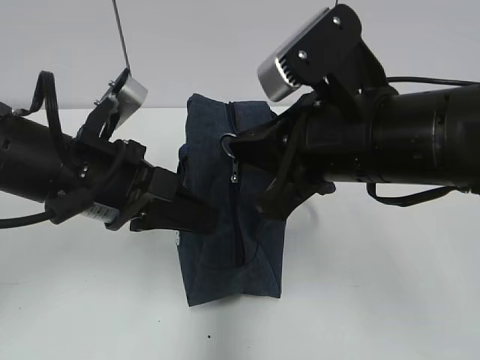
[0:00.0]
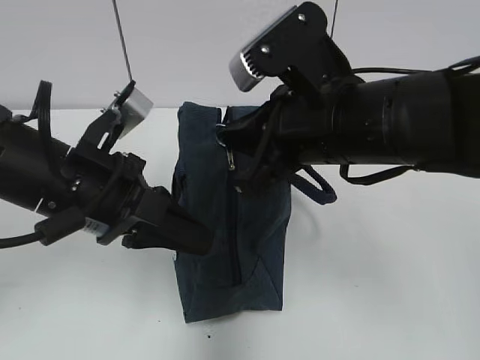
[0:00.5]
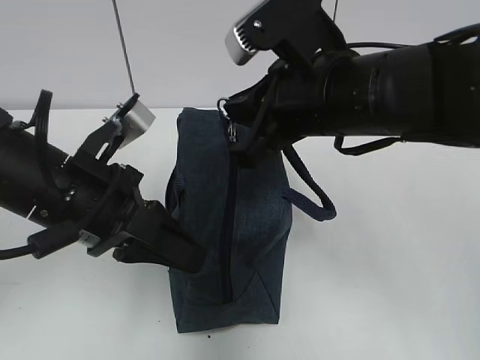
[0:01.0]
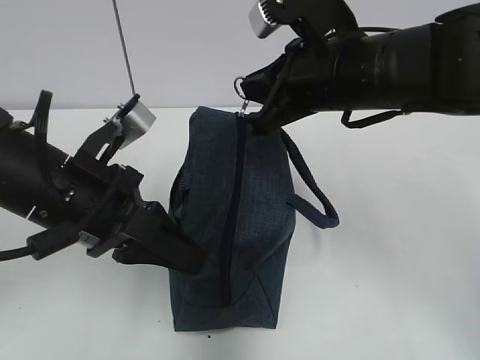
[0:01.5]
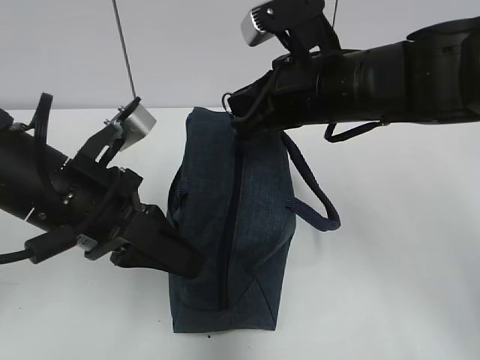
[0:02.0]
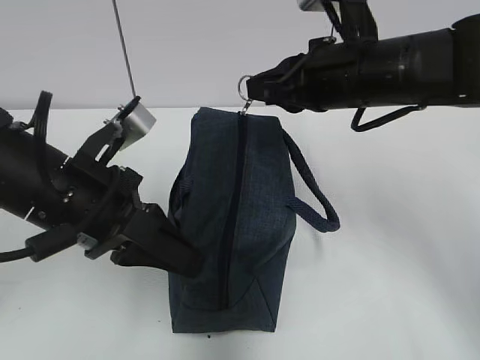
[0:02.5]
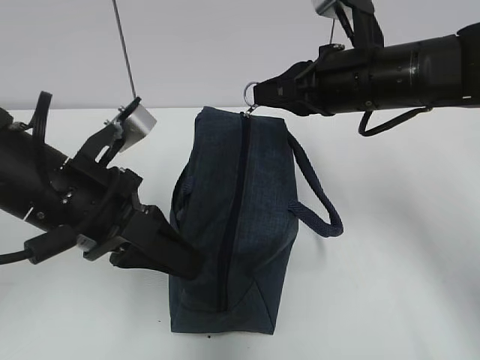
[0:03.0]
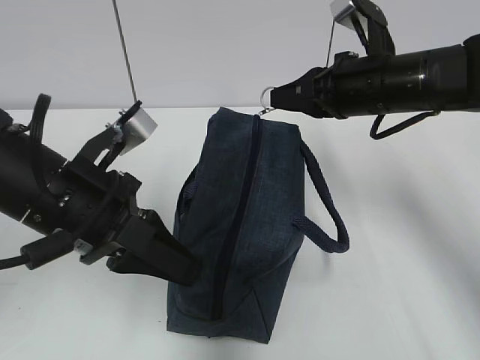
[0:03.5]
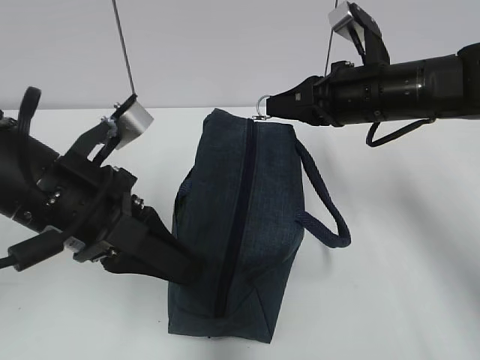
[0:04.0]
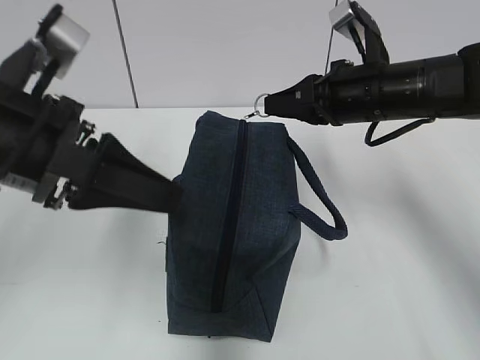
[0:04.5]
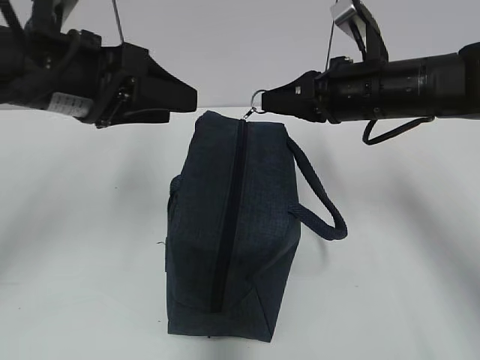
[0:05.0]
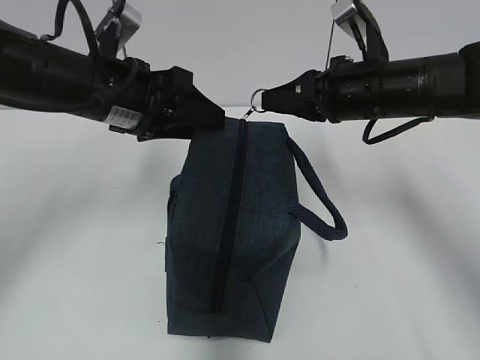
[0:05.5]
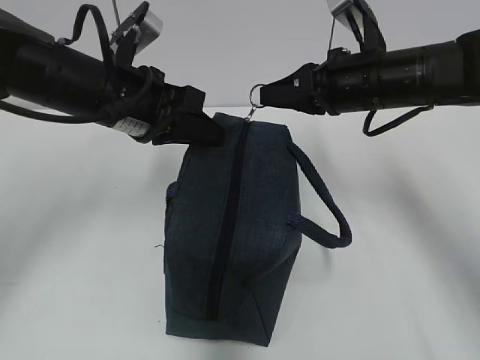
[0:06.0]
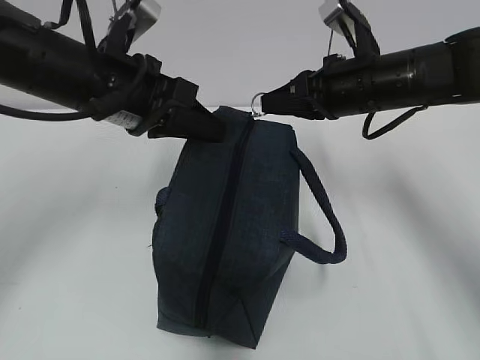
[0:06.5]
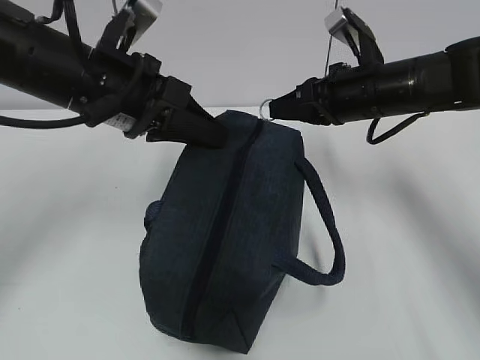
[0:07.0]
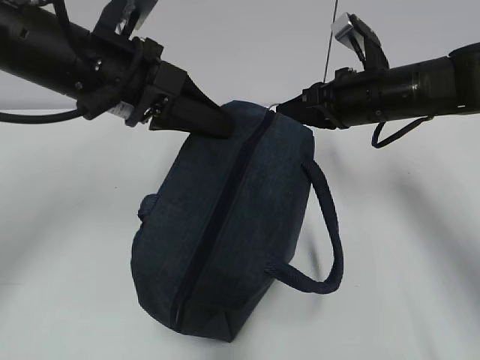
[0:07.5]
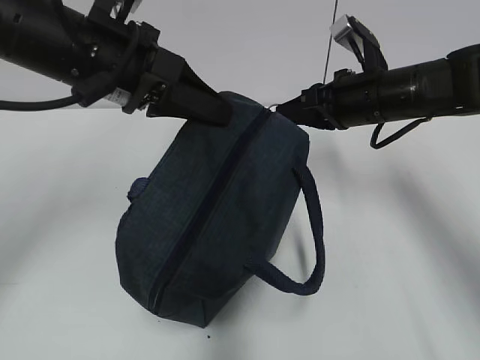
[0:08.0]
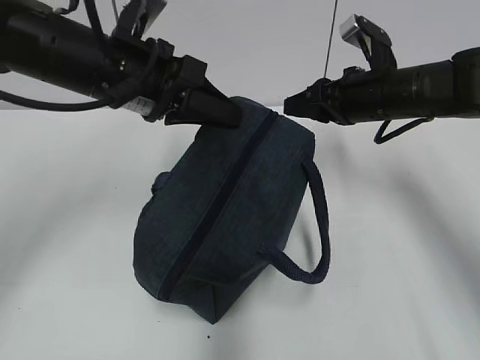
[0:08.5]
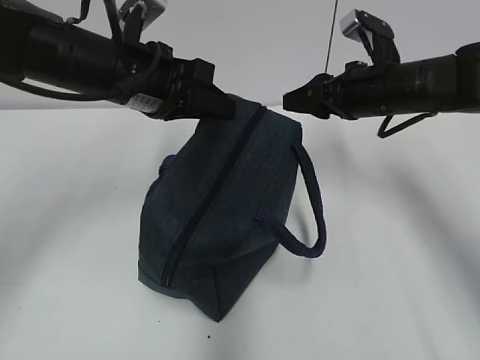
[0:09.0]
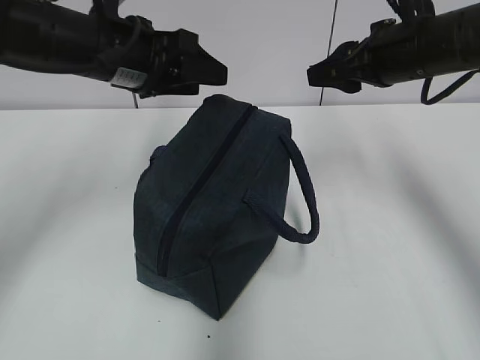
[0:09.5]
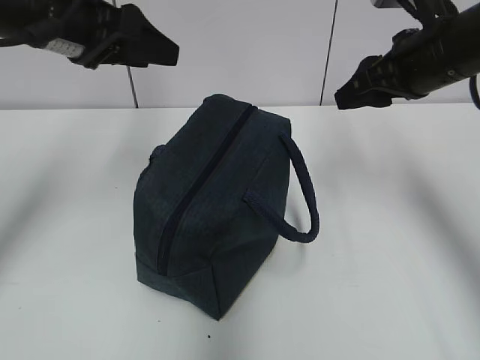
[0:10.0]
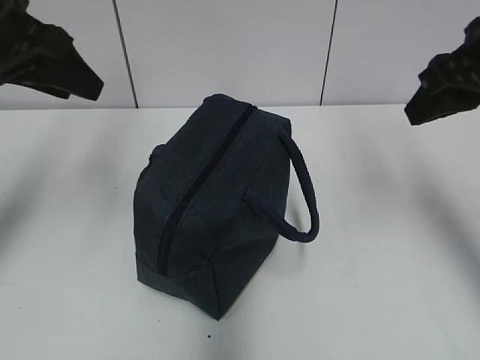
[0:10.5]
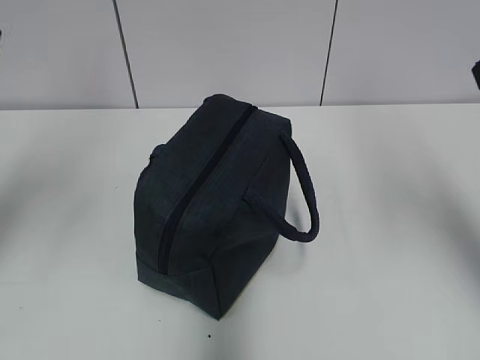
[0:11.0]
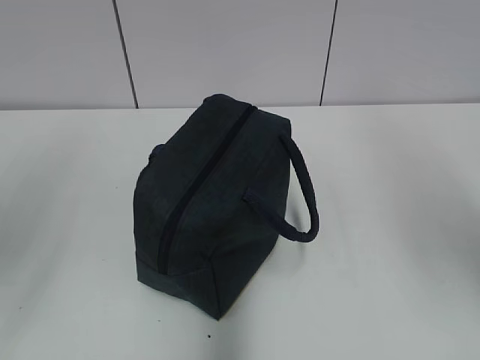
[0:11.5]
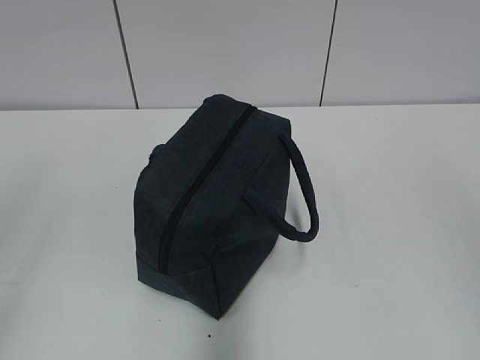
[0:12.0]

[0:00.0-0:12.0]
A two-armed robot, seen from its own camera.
Step, 0:00.0 to 0:08.0: Pull the zipper with your right hand.
Step, 0:08.5 to 0:09.0: Grab the lunch bag with your left hand.
0:00.0 to 0:02.0: The right gripper shifts some 10 cm forward.
0:02.0 to 0:04.0: The left gripper opens, while the right gripper heads to the right, covering about 5 cm.
0:04.0 to 0:06.0: The left gripper moves forward, roughly 10 cm, and opens and closes again.
0:06.0 to 0:08.0: The left gripper shifts roughly 5 cm upward.
0:08.0 to 0:10.0: The left gripper is displaced to the left by about 5 cm, and opens. Meanwhile the right gripper travels upward by approximately 5 cm, and opens up.
0:10.0 to 0:12.0: The right gripper heads backward and upward, covering about 40 cm; the left gripper goes roughly 35 cm backward.

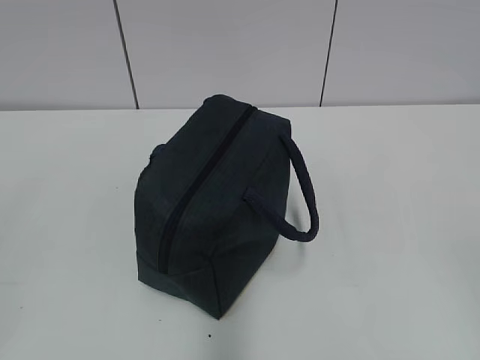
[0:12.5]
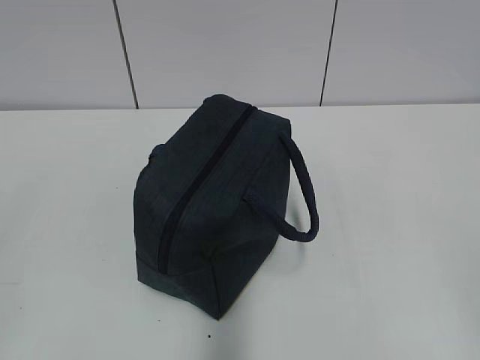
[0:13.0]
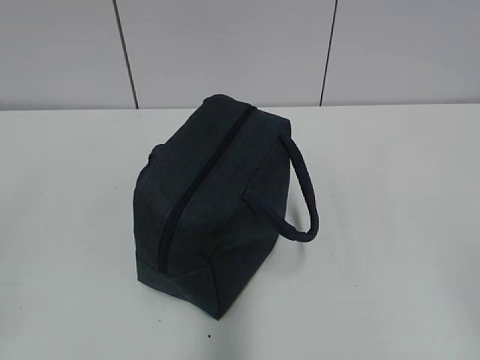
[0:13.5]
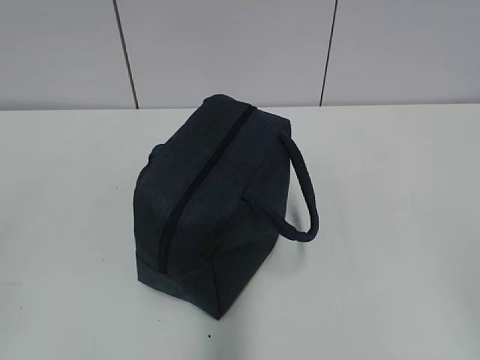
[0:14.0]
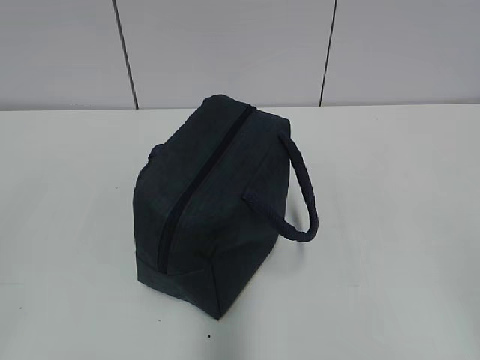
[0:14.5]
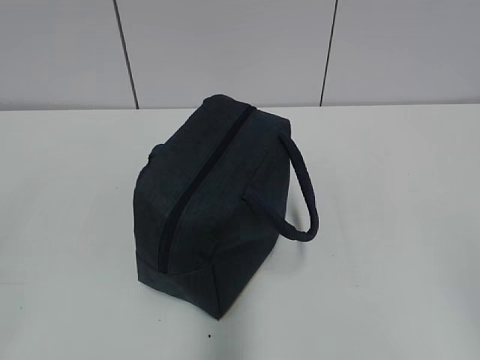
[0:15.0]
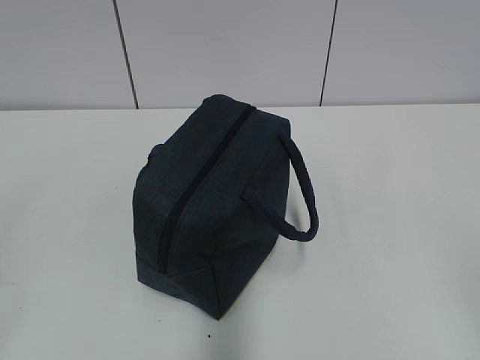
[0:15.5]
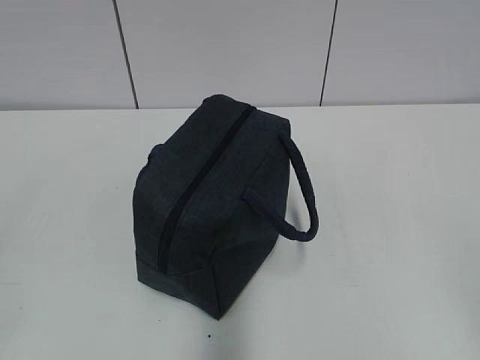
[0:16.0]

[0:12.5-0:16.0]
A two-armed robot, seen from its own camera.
0:14.5 to 0:16.0: Neither gripper changes place.
